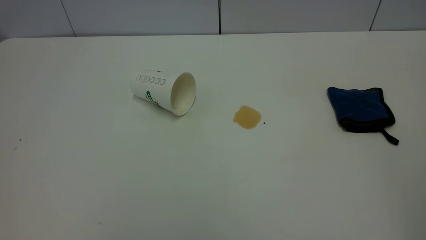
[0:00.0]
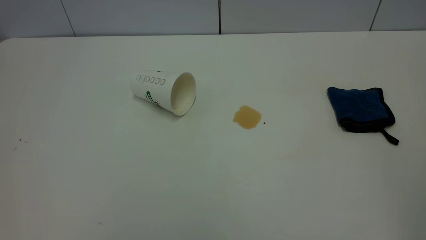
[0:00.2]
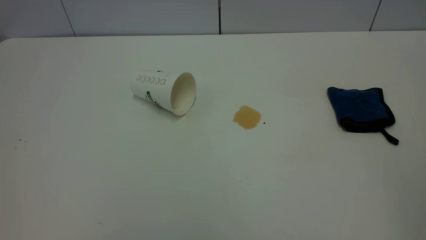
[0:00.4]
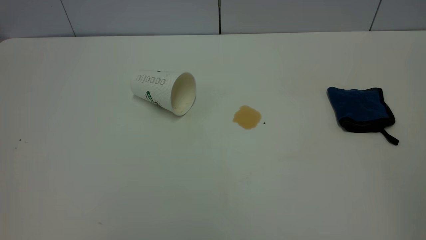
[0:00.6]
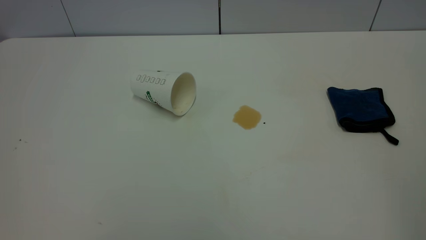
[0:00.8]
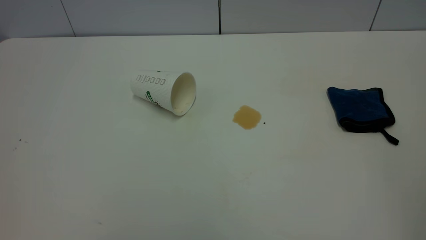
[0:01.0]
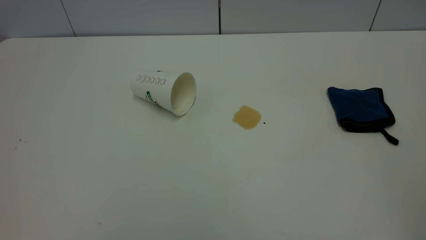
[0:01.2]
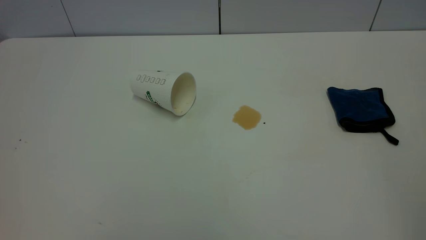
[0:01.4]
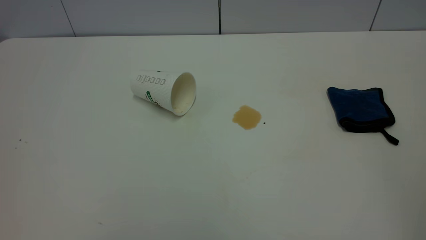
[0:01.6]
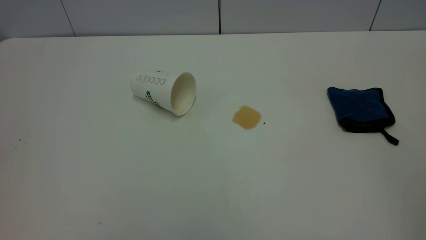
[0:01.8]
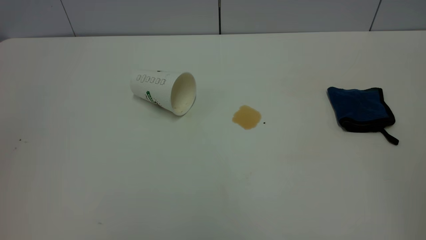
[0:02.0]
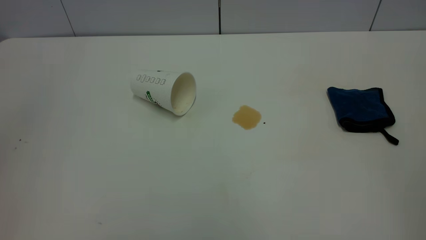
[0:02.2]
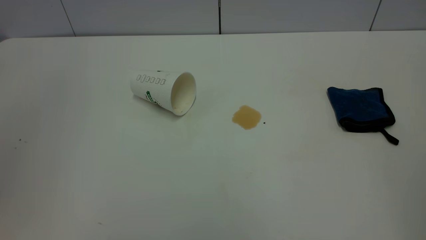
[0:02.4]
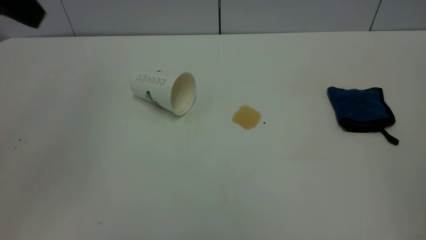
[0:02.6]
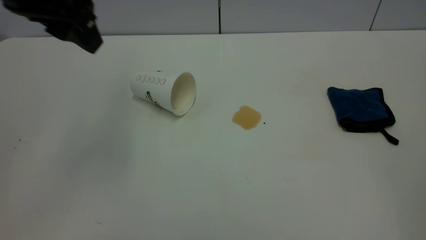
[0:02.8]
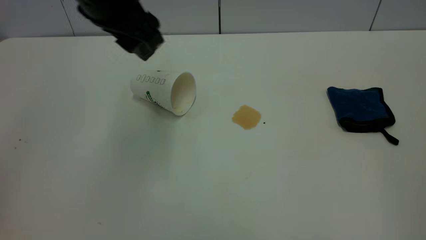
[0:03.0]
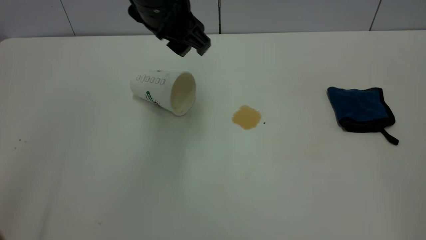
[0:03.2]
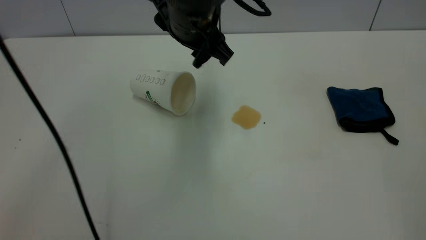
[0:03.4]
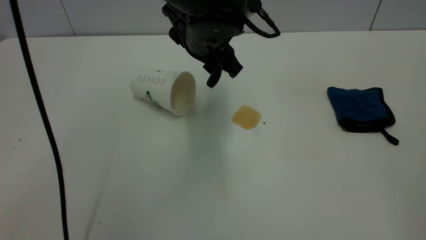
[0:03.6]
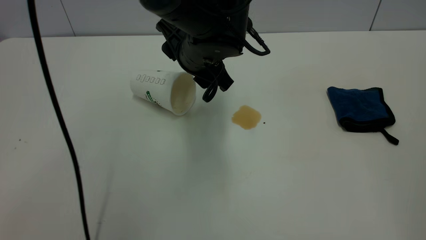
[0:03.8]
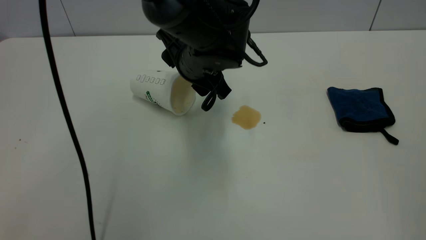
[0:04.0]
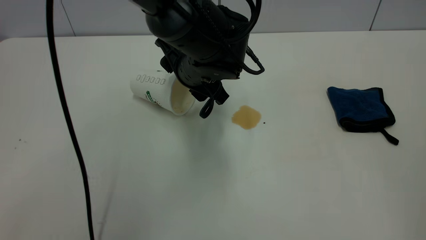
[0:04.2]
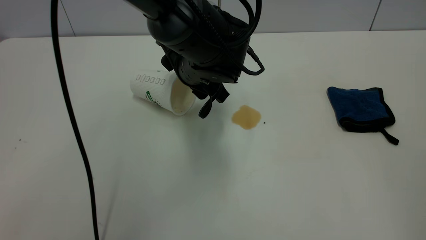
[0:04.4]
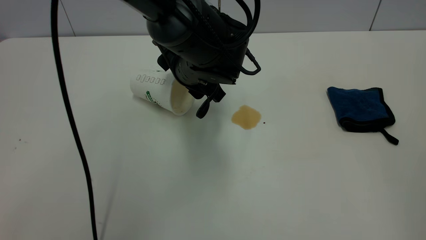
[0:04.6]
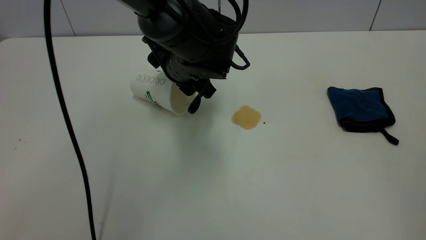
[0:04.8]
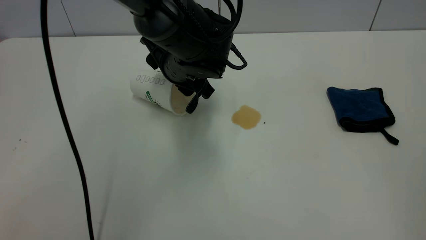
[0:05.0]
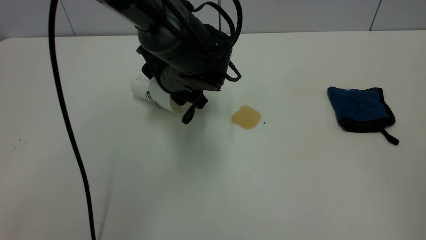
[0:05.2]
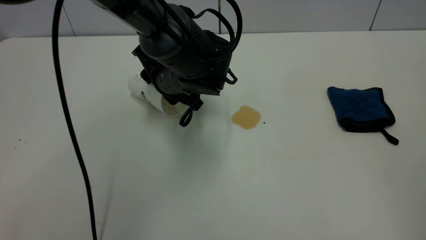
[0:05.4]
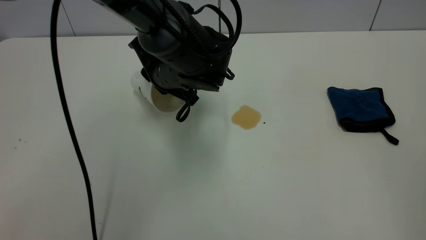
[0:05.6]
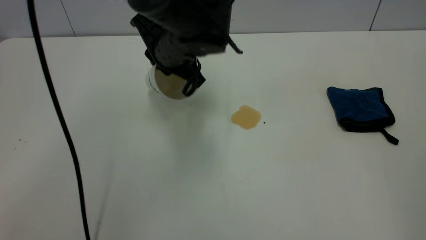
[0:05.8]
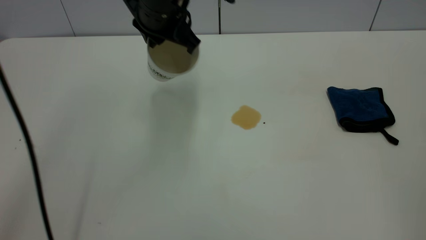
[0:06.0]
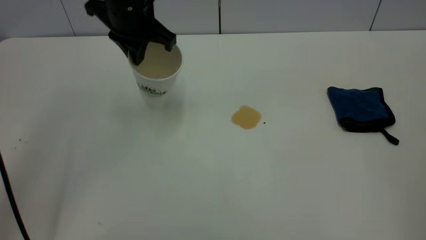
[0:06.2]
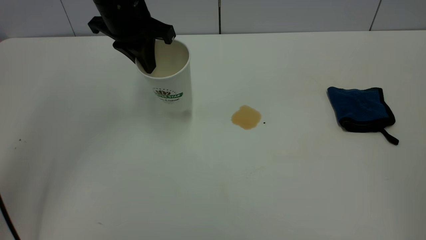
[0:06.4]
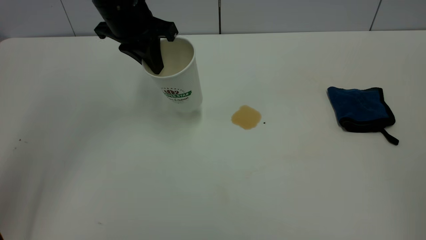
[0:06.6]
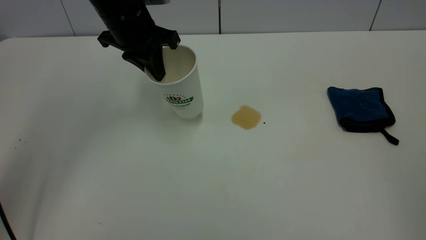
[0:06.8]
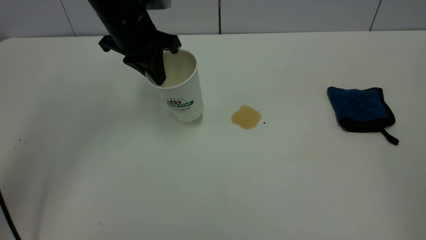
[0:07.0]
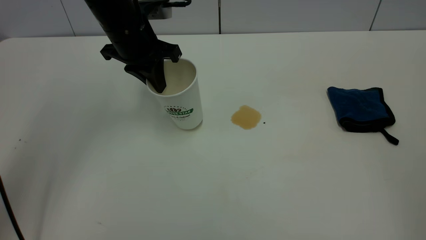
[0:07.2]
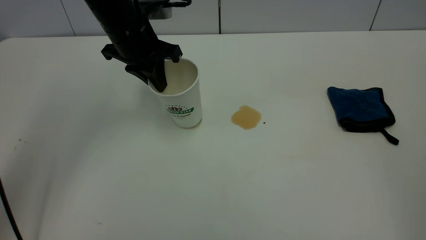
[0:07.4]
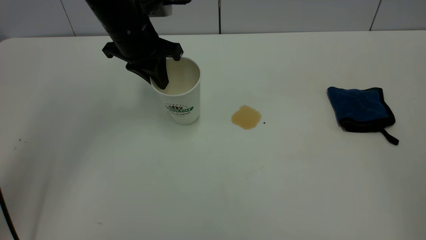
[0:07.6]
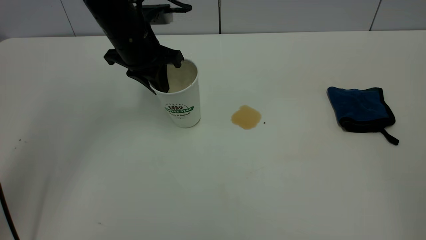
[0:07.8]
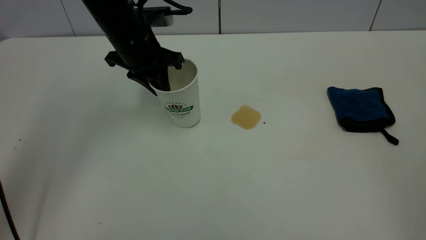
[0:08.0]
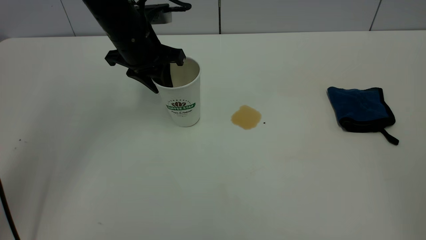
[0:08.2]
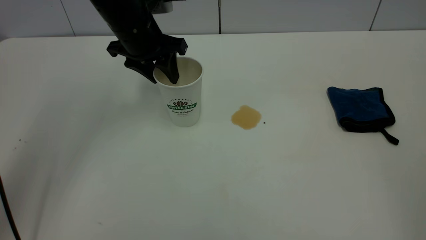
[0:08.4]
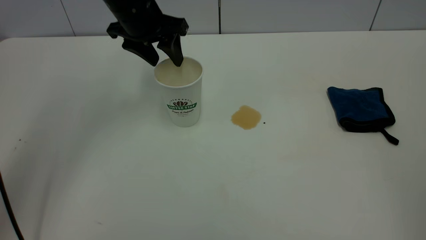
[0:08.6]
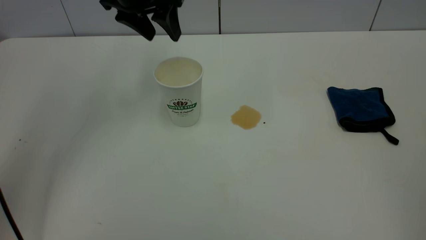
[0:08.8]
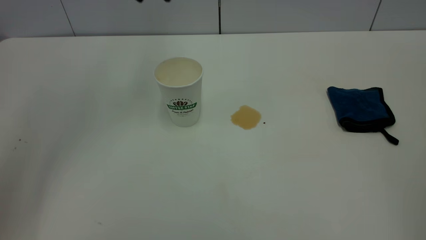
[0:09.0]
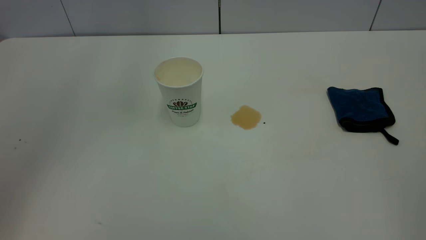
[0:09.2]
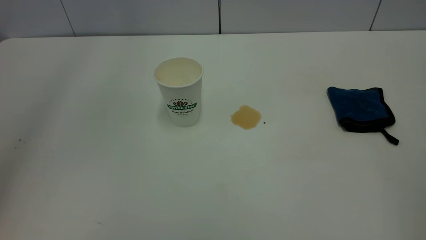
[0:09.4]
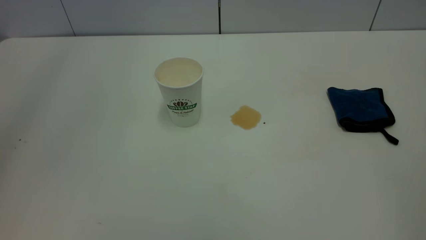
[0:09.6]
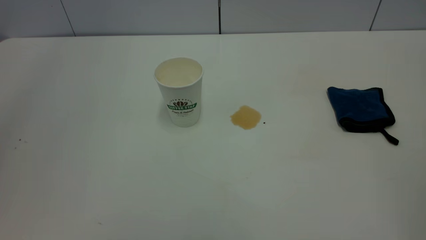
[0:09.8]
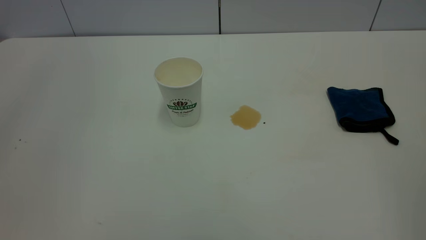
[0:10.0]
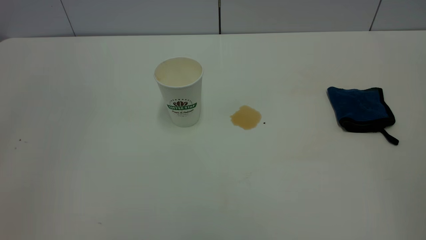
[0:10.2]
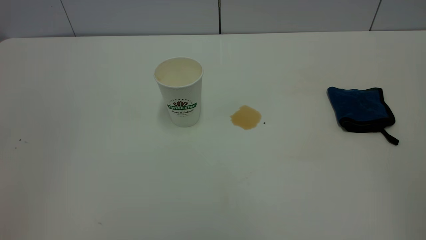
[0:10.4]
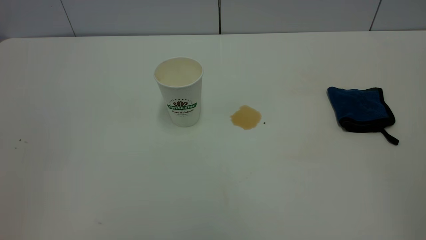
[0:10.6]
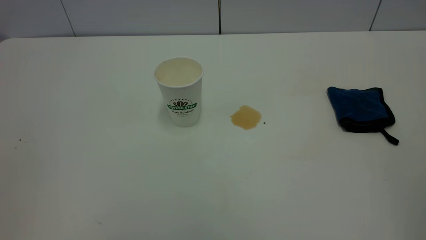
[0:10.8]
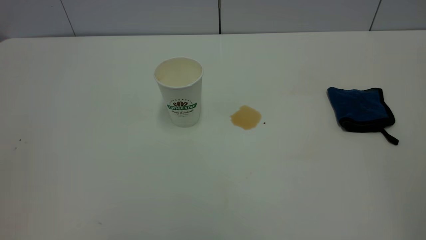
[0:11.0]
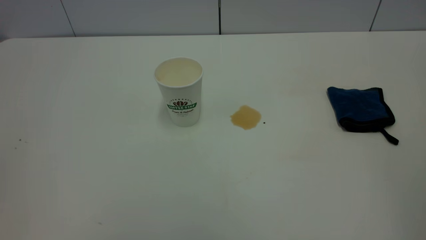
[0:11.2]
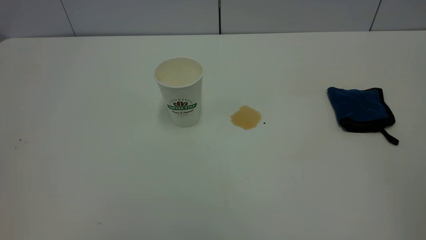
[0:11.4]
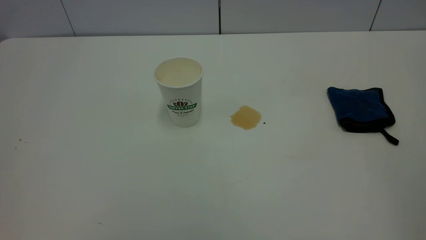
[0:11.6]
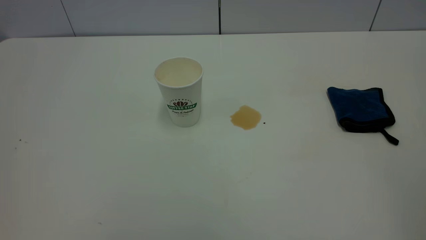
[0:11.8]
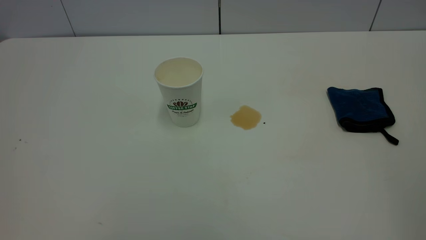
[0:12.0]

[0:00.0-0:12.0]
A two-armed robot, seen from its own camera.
Task of the whole recording: the left gripper pick up the fallen cup and place it upright, the right gripper grasp the blue rag and wipe the tea stain on the table, the right gripper put the blue rag back in its original position.
Step, 0:00.0 to 0:08.6: Stand the paper cup upright.
0:01.6 to 0:03.0: The left gripper travels forward and to the right by approximately 40 cm.
0:03.0 to 0:04.4: The left gripper shifts approximately 15 cm downward and to the right.
0:04.4 to 0:06.0: The left gripper moves upward and to the left, about 10 cm, and closes.
0:06.0 to 0:07.6: The left gripper shifts about 10 cm to the left and downward.
0:07.6 to 0:09.0: The left gripper moves upward, about 15 cm, and opens its fingers.

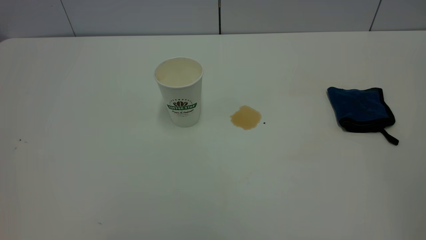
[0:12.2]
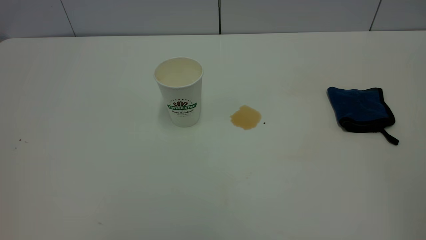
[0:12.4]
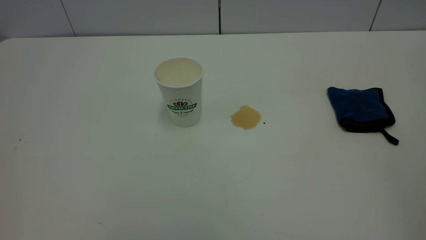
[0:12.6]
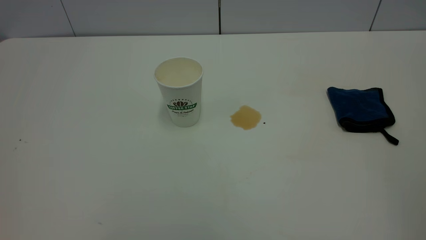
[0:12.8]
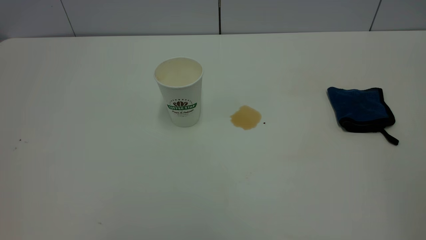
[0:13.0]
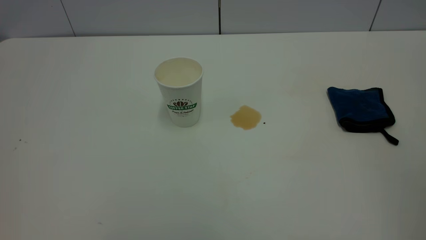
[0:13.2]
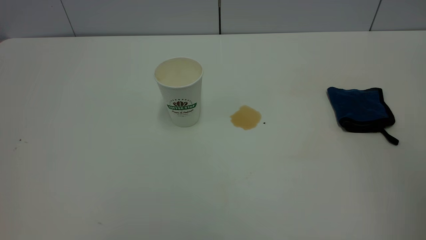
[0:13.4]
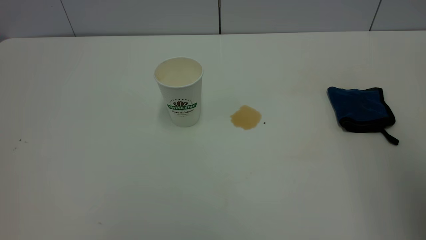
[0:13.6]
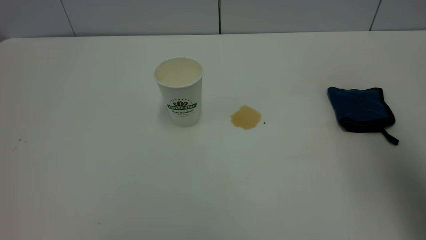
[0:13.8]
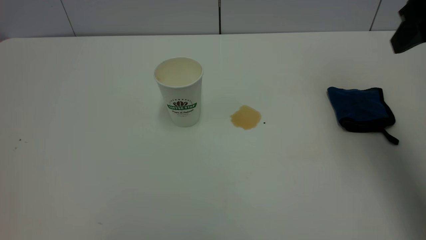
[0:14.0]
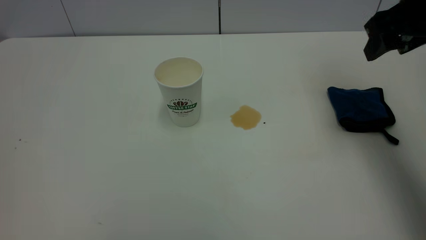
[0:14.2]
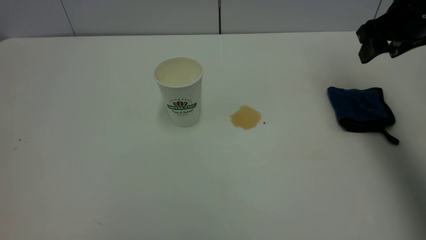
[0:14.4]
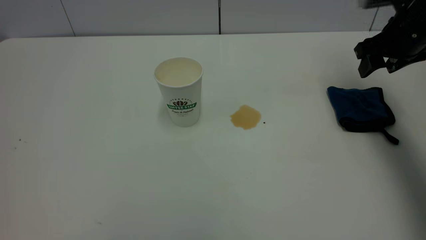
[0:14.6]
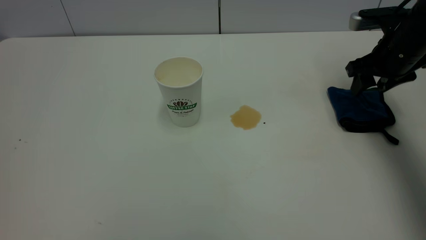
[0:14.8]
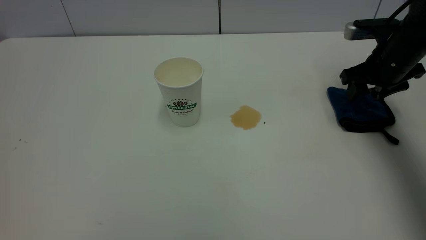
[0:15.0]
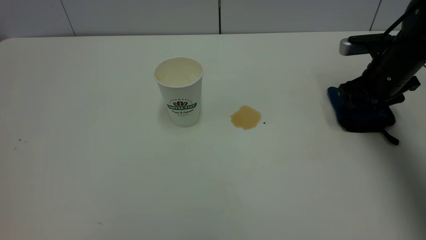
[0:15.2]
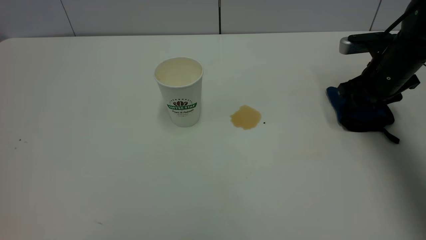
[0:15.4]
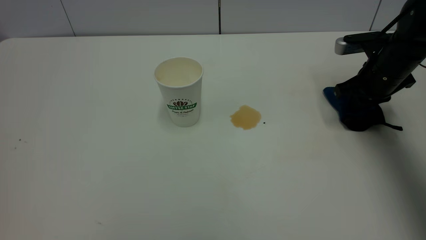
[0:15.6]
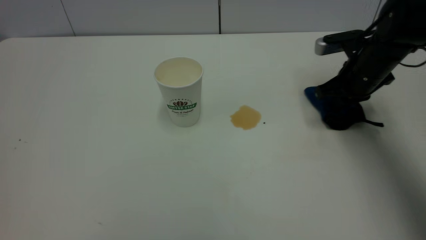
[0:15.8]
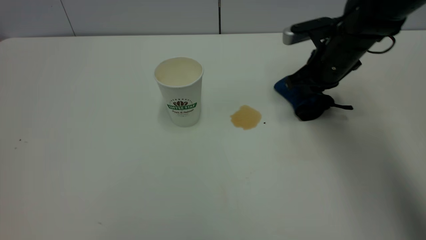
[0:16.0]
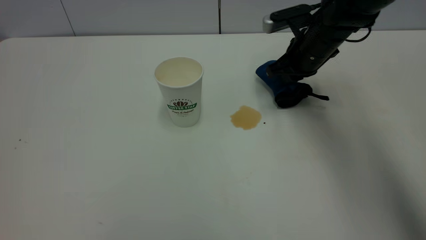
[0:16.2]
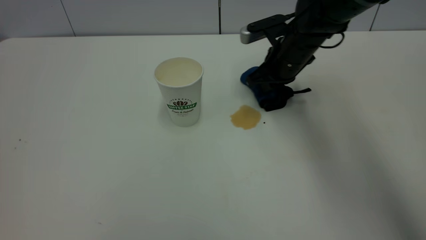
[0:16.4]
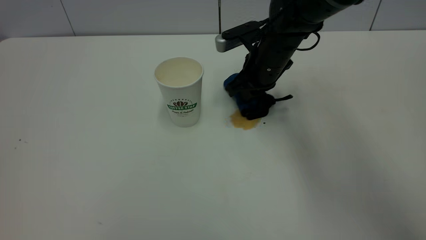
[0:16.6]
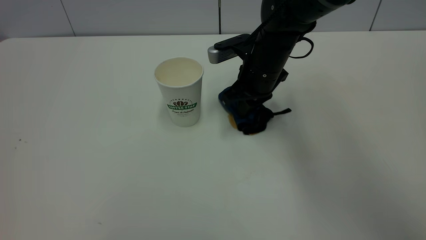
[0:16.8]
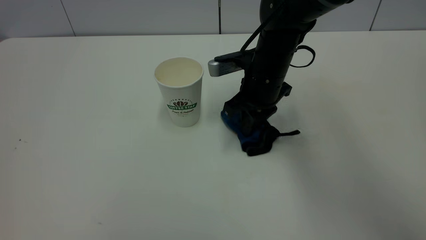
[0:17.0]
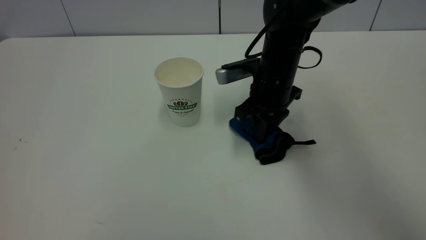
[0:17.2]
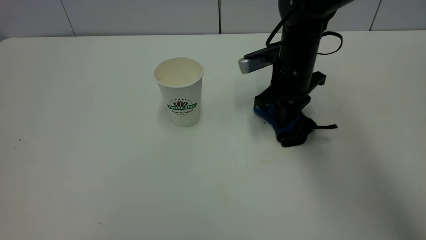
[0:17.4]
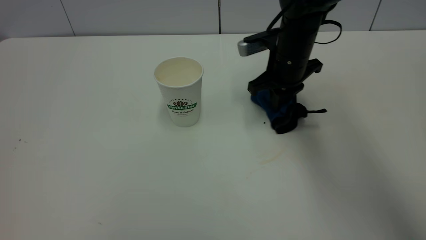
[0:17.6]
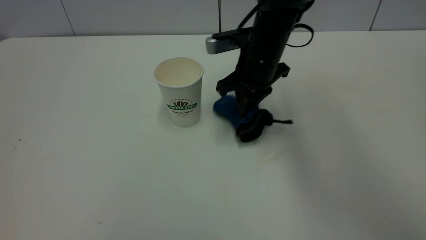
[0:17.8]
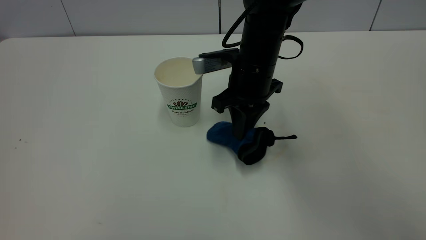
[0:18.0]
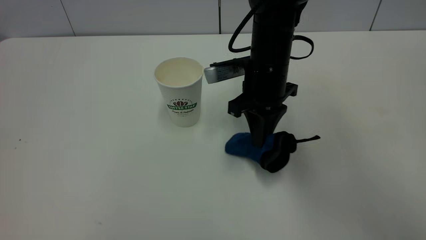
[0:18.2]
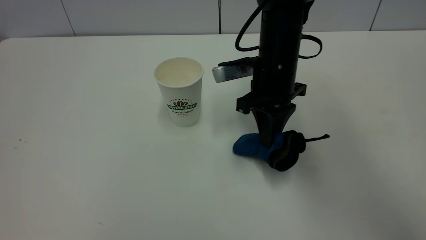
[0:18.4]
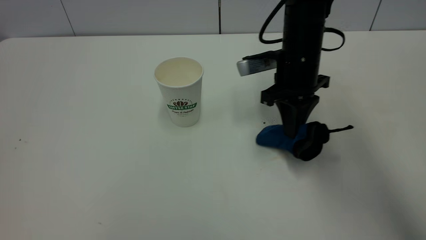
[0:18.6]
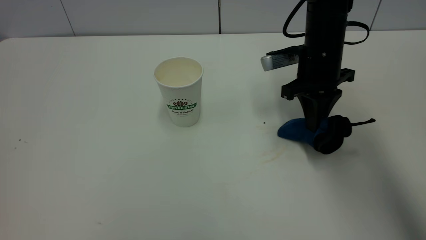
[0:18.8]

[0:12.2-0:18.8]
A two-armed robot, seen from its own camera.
Task of the whole recording: the left gripper pick up the fallen cup and place it upright, the right gripper grasp the blue rag and wipe the tea stain on the table, the right gripper put the blue rag back in its original position.
0:12.2 to 0:13.8: The right gripper moves forward, roughly 25 cm.
0:13.8 to 0:15.4: The right gripper travels downward and forward by about 30 cm.
0:15.4 to 0:17.2: The right gripper moves to the left, about 20 cm, and closes.
0:17.2 to 0:18.8: The right gripper moves to the right, about 5 cm.
